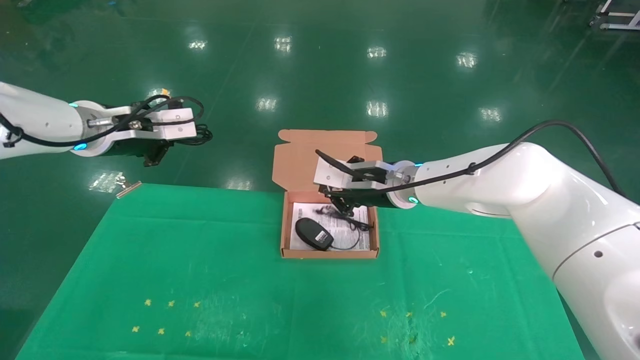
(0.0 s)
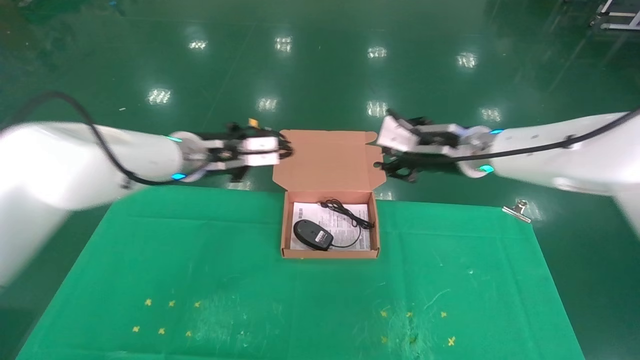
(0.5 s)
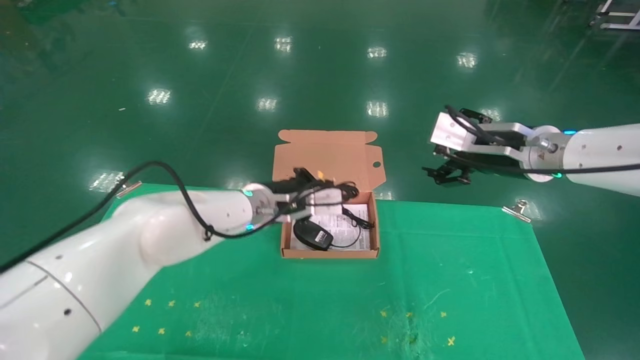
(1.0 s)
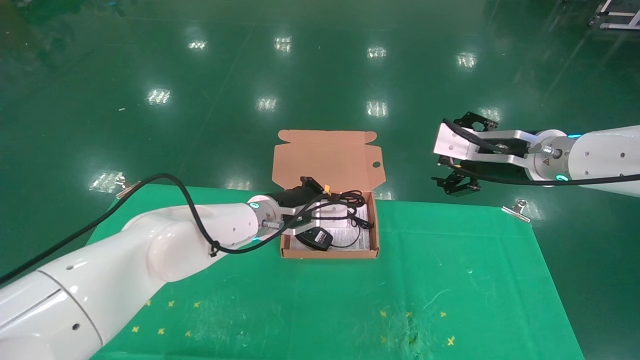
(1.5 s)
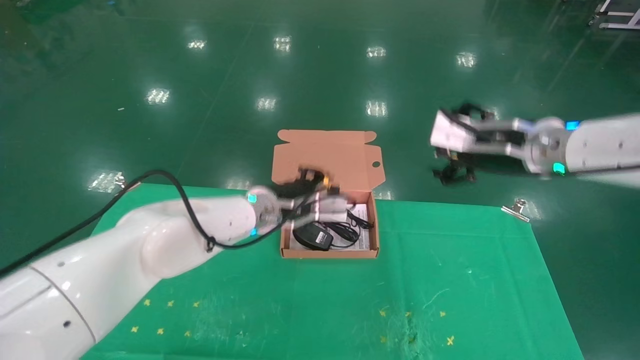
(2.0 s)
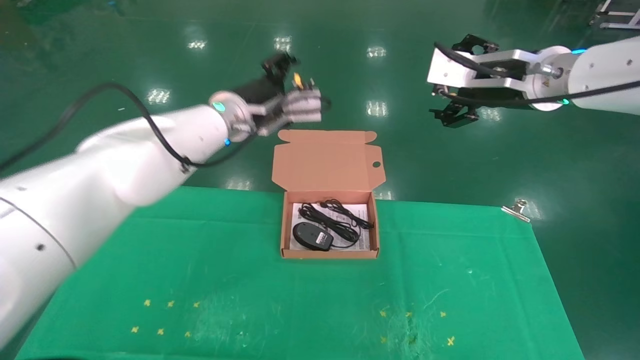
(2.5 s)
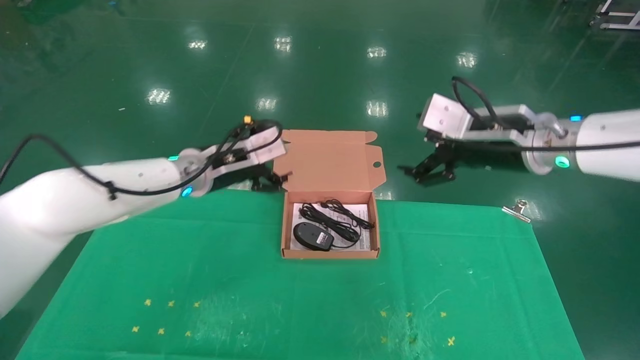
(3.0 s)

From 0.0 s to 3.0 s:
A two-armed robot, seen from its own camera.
Task of the whole recording: grasp data cable left put into box grasp mouse right put into box.
Step, from 0.0 s to 2.0 s: Place the mouse and power cord into the box.
From 0.0 s to 1.5 s: The right gripper moves to the right and backward, roughly 15 cm, and opens up. Meanwhile the left gripper heads to the right and downward, covering about 25 cm.
From 1.5 s to 3.0 s: The right gripper moves about 10 cm upward and comes back. The left gripper shifts approximately 10 cm to the left and upward, and opens its fingers.
